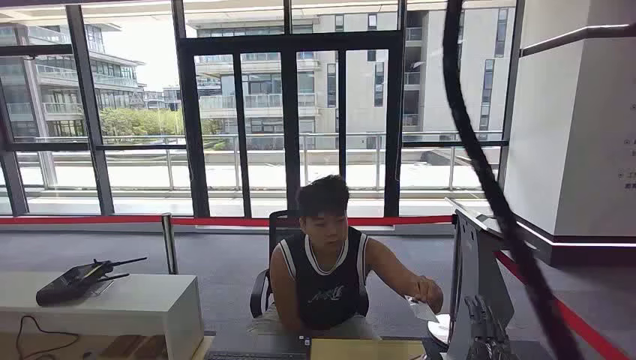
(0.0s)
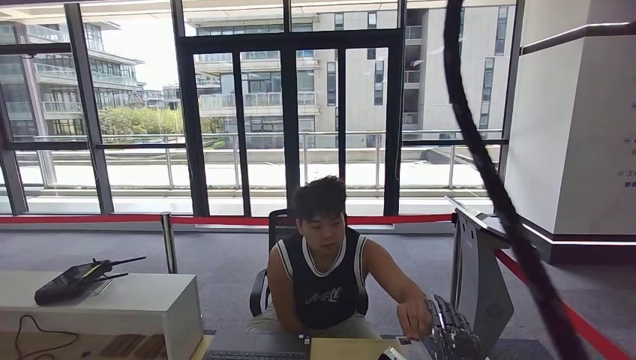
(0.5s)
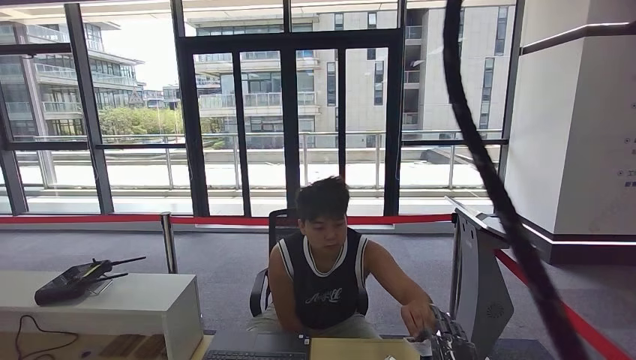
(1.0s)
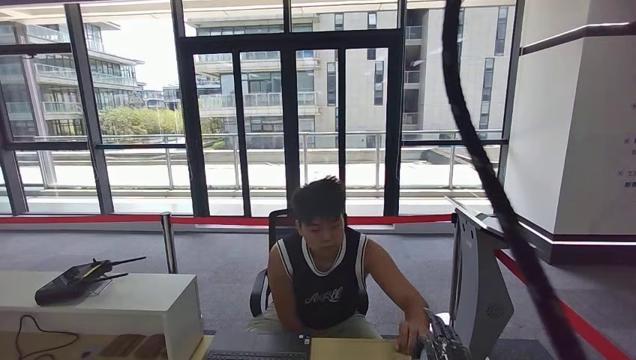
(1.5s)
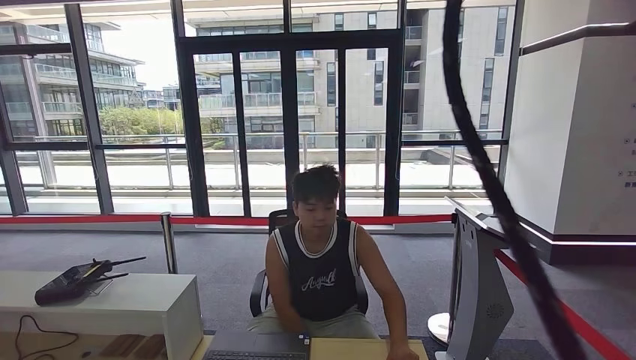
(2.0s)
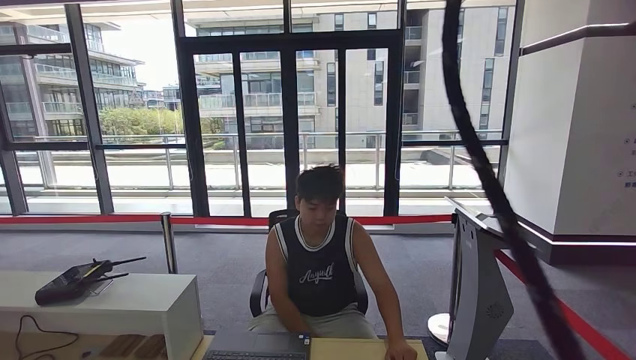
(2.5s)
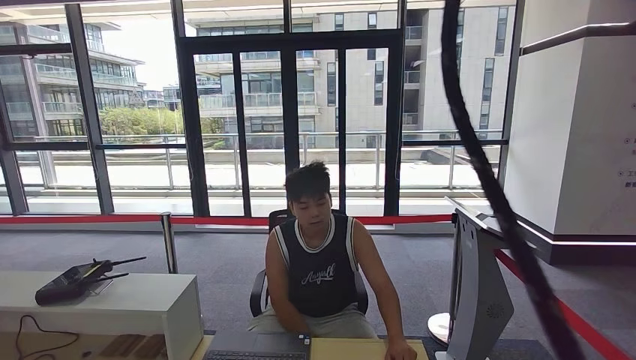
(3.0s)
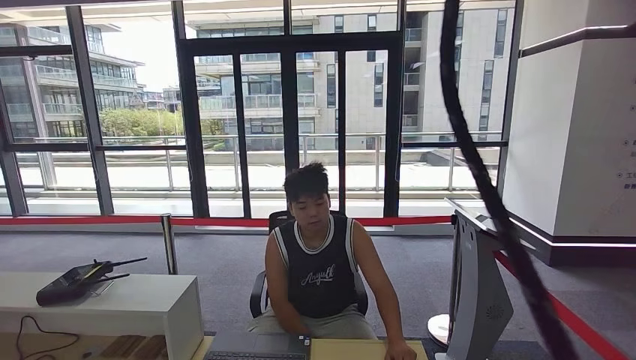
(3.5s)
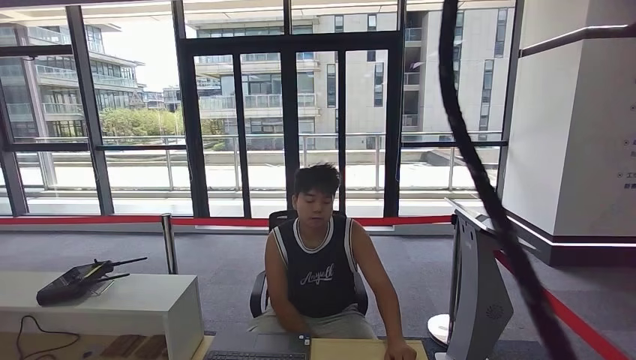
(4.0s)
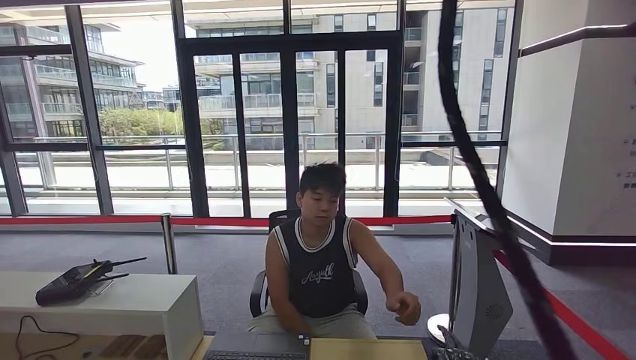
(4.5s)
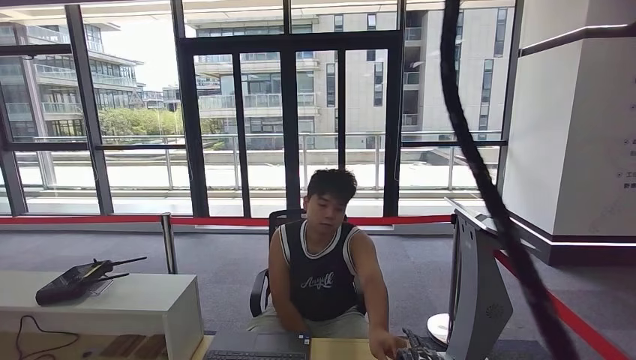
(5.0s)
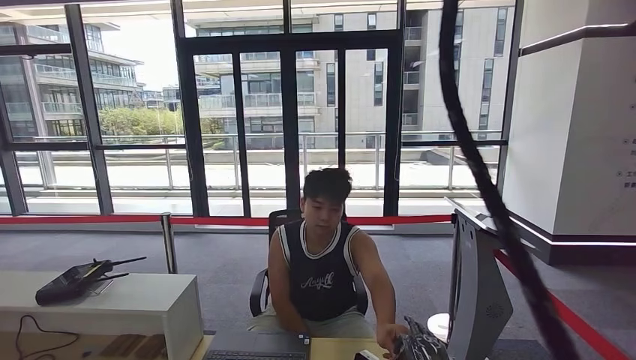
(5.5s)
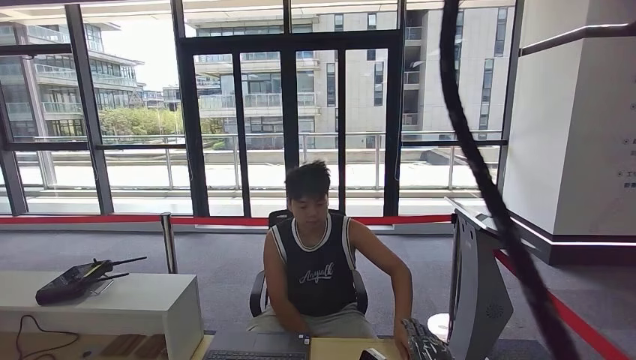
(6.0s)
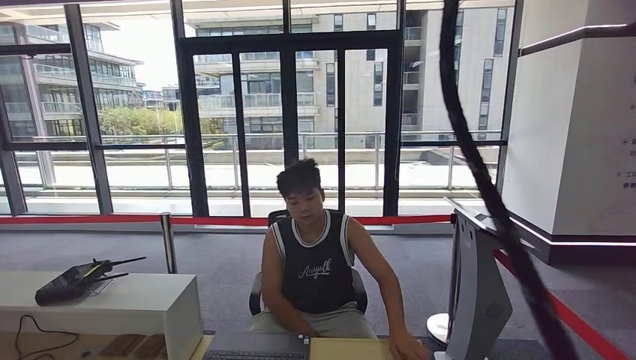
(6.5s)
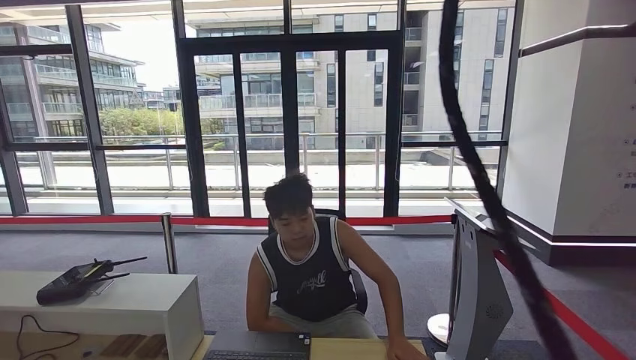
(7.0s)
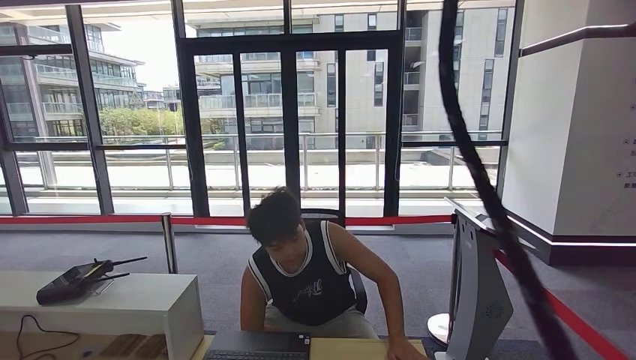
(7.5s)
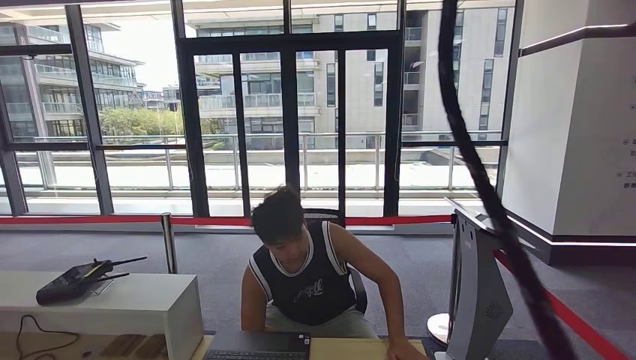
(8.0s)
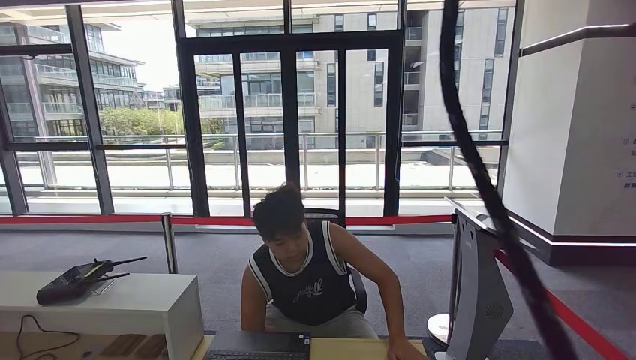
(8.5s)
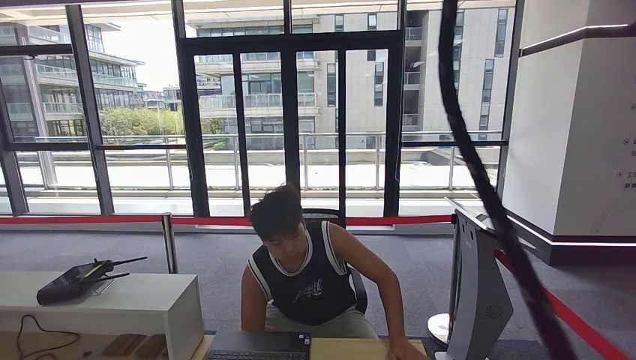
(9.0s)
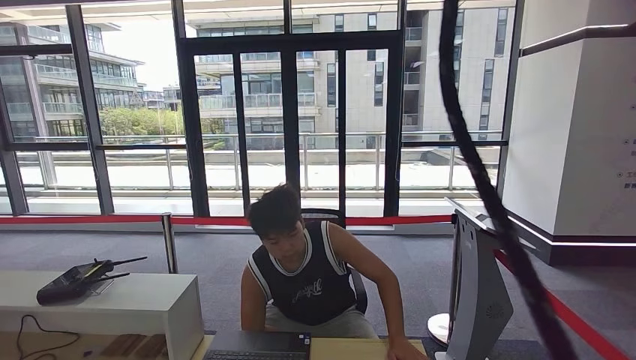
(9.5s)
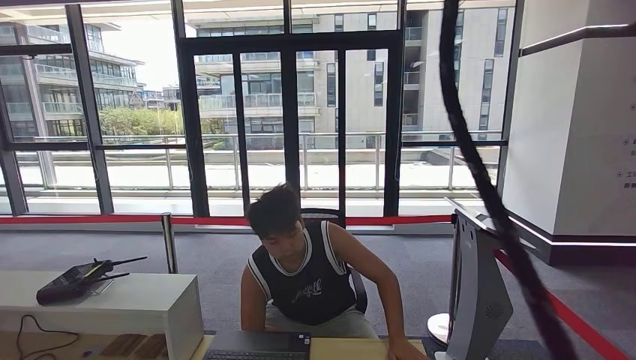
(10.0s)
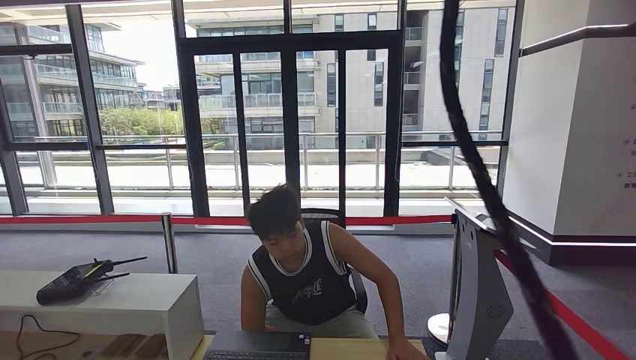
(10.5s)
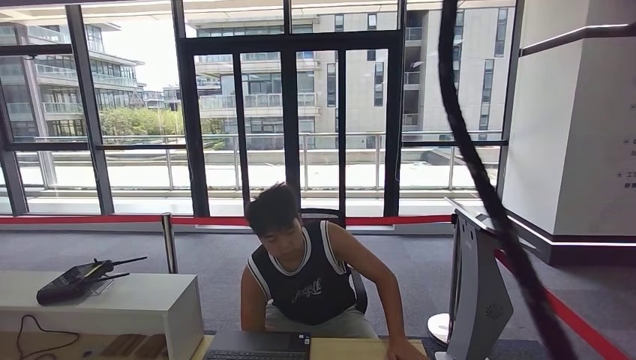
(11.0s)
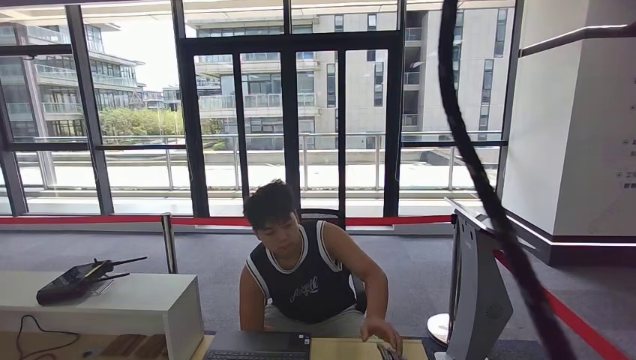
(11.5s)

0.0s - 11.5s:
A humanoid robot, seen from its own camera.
Step, 0.0s - 1.5s: Take the ID card from the person's hand.
Step, 2.0s - 3.0s: Place the ID card on the card reader.
Step, 3.5s - 6.0s: Hand the ID card to the person.
Step, 6.5s - 11.0s: Pick up the room key from the key card box.
4.0s - 6.0s: The right hand is displaced upward, forward and to the left by roughly 15 cm.
6.0s - 7.5s: The right hand goes roughly 20 cm downward and backward.
9.5s - 11.5s: The right hand heads upward and forward, covering about 15 cm.

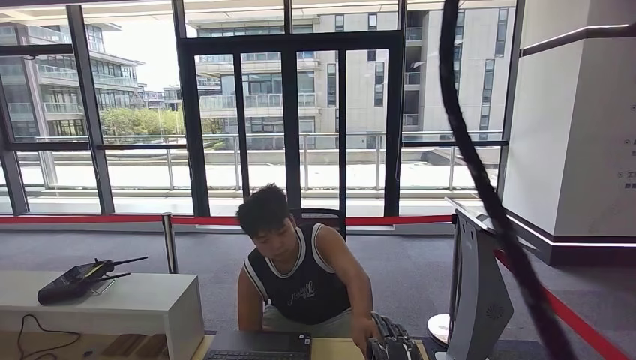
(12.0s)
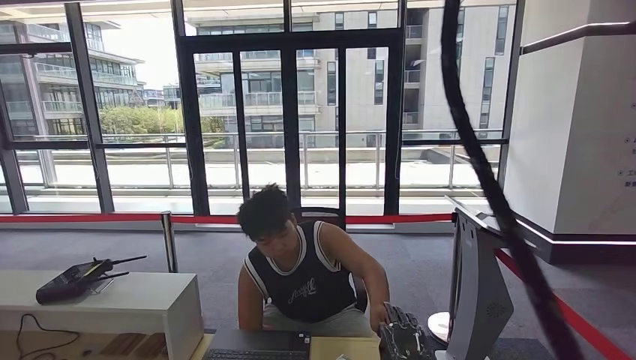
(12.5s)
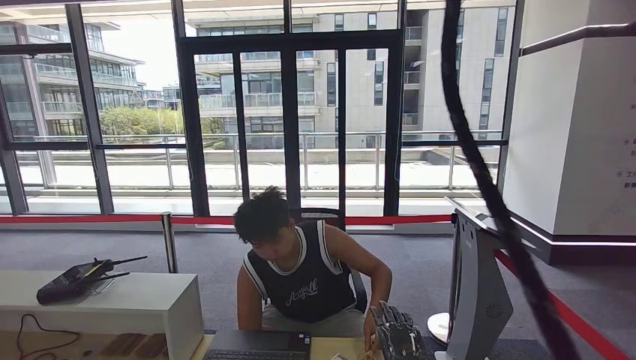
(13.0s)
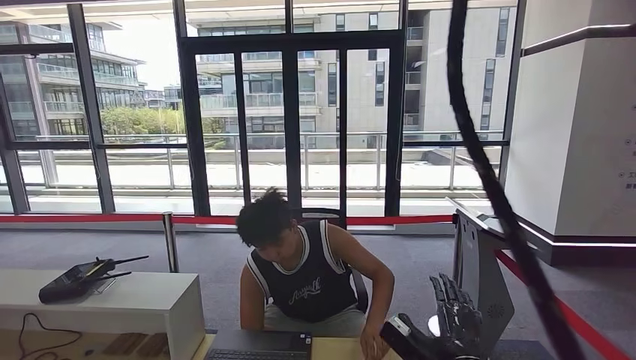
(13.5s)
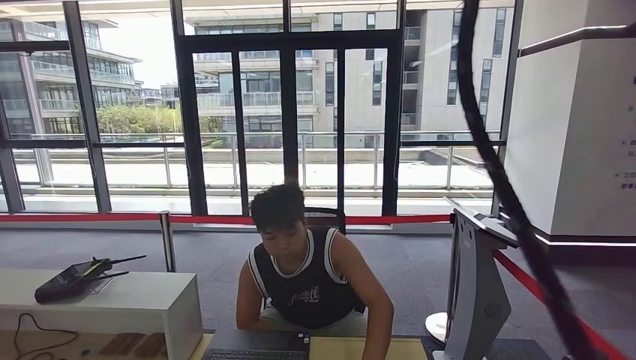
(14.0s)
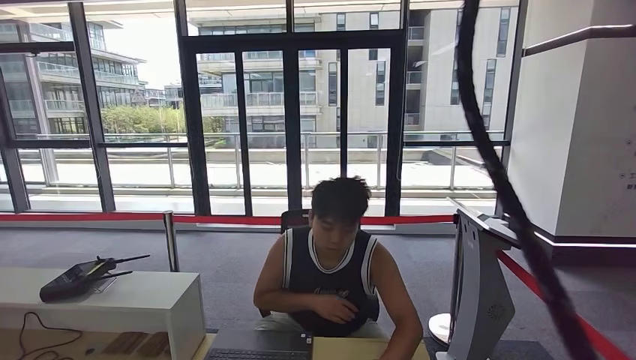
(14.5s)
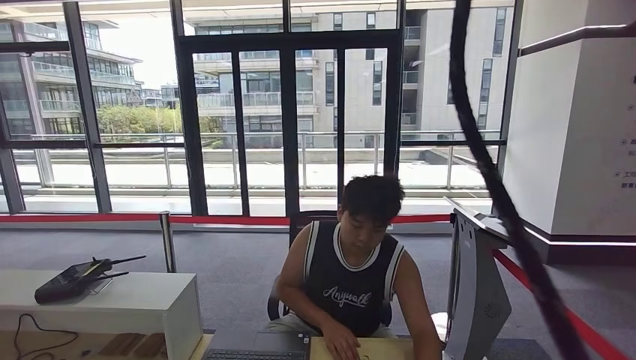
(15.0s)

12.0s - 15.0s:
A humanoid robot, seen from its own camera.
Step, 12.0s - 15.0s: Hand the room key to the person.
12.0s - 13.5s: The right hand moves to the right, roughly 10 cm.
